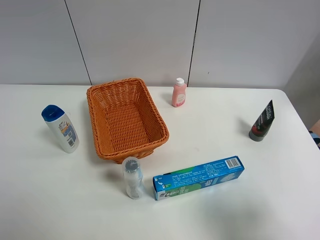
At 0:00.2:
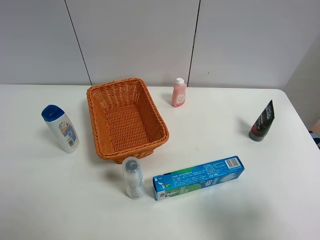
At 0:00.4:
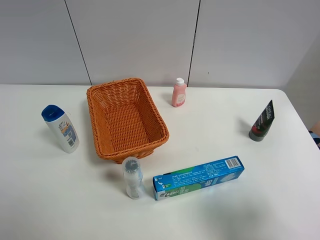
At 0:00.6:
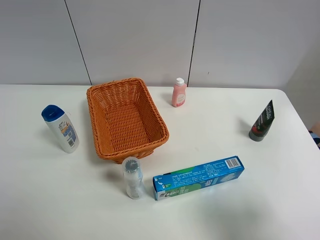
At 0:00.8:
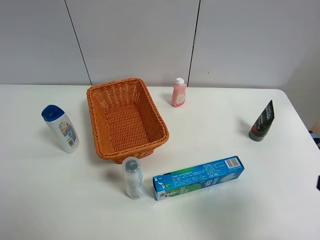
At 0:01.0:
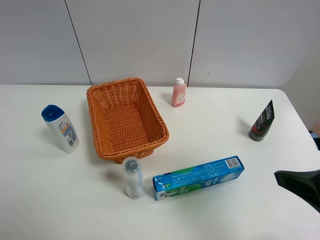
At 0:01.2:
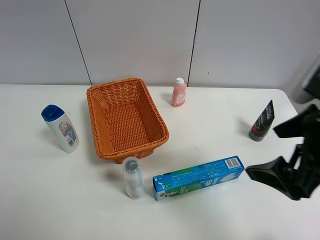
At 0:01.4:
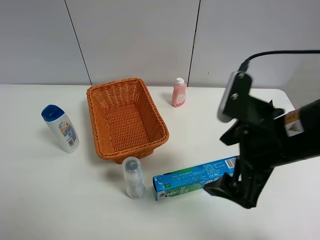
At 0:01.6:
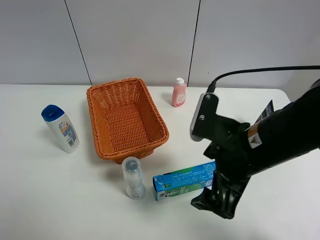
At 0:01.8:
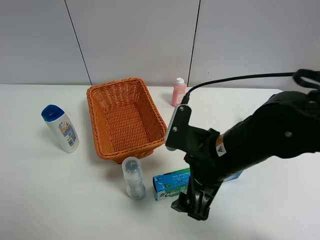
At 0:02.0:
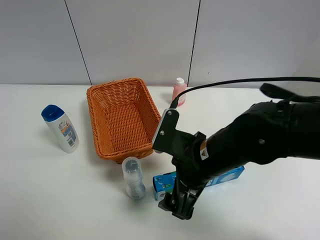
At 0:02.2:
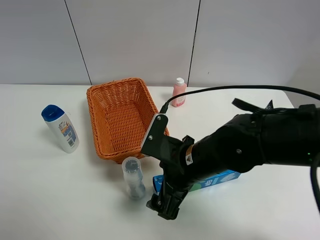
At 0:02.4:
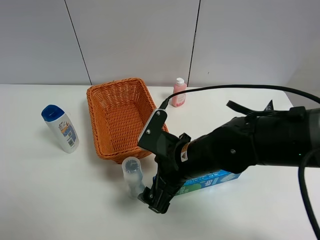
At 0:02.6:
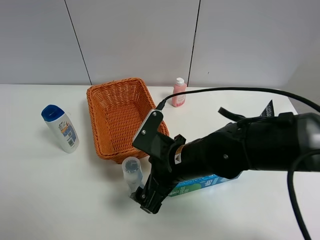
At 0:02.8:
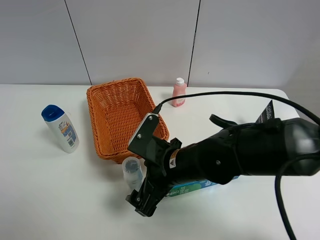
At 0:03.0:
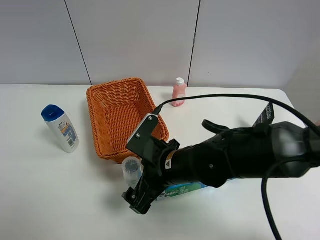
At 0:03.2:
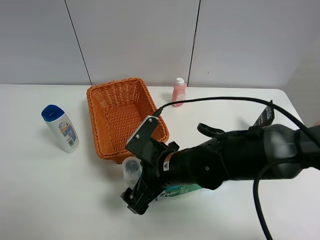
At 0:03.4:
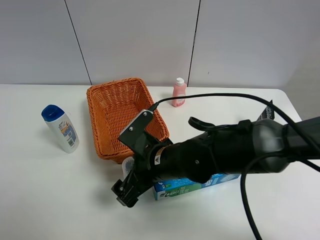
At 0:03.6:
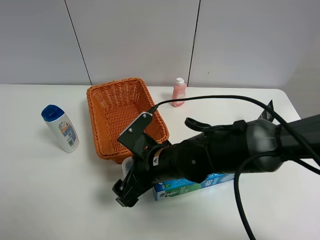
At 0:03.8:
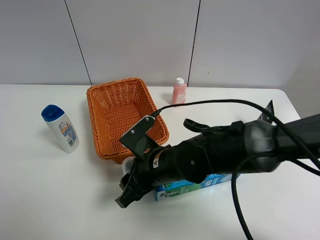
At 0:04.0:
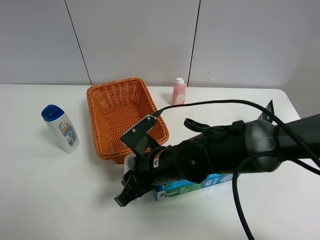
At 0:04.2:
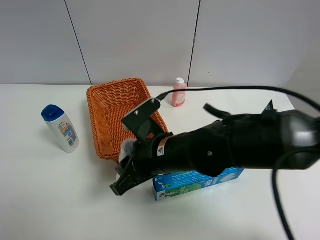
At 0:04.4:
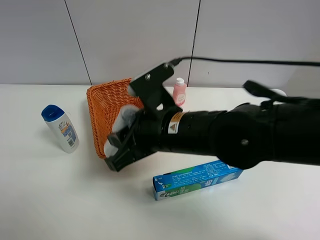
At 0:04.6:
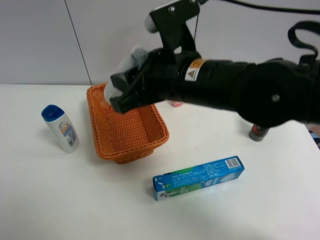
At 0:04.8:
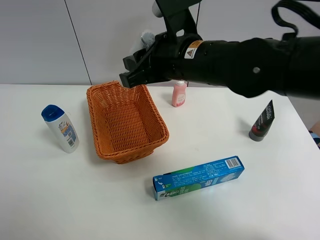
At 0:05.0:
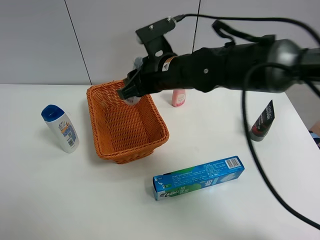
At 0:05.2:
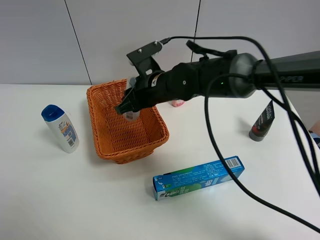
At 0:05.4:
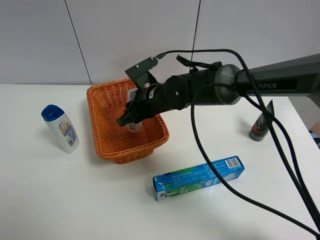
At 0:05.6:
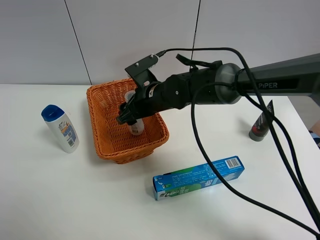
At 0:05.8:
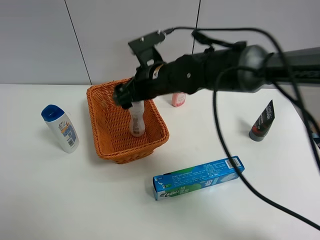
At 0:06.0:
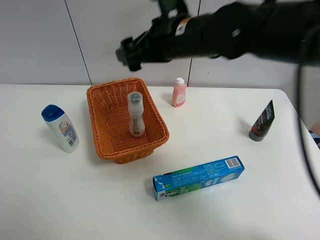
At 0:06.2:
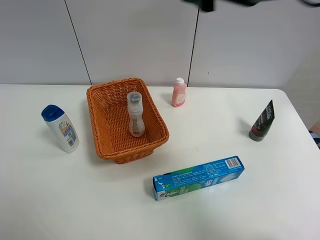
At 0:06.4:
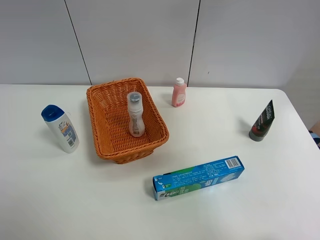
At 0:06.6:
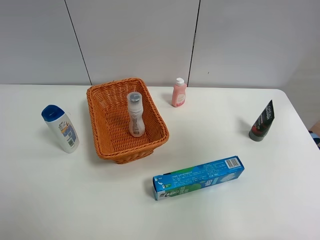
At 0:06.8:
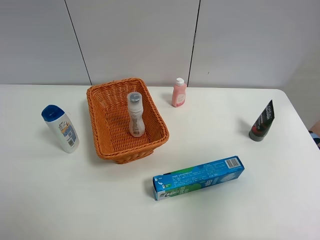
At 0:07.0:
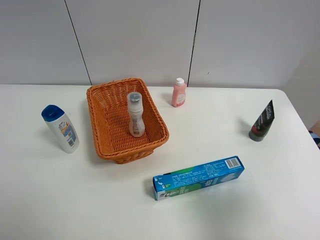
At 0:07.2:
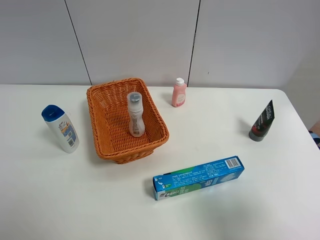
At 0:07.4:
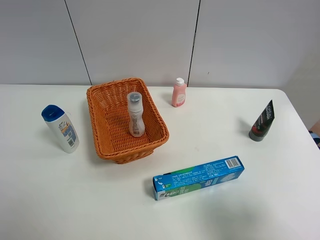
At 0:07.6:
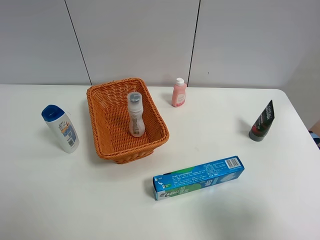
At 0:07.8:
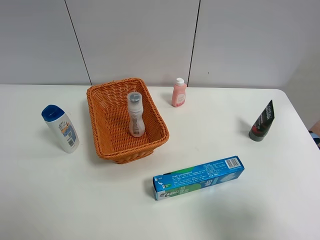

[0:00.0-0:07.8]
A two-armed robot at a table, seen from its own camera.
Task of the whole recording: Place the object closest to the toothpaste in the basket.
Step, 0:00.0 to 0:04.0: Grasp the cleaning agent with right gripper.
Step, 0:04.2 to 0:06.0: Place the cleaning agent in the basket with right gripper.
0:00.0 to 0:01.6: The right gripper goes approximately 25 cm to the left and forward.
0:01.6 to 0:03.2: The right gripper moves to the left and downward, approximately 15 cm.
0:03.2 to 0:04.6: The right gripper travels upward by approximately 15 cm, and closes its fingers.
0:04.6 to 0:06.2: The right gripper moves to the right and upward, some 20 cm, and opens up.
0:06.2 to 0:07.8: The right gripper shifts roughly 30 cm backward, downward and to the right.
